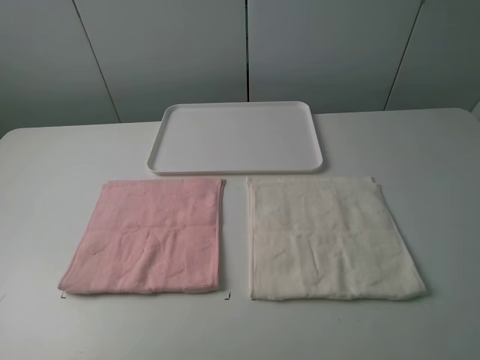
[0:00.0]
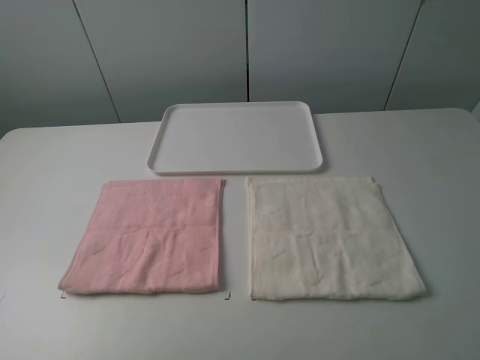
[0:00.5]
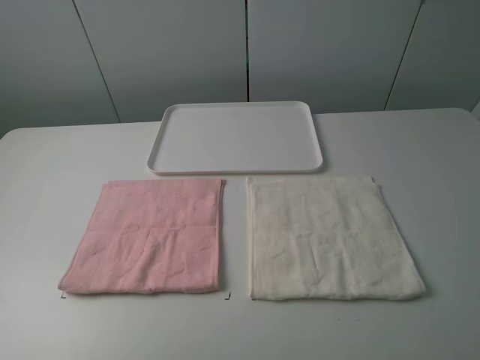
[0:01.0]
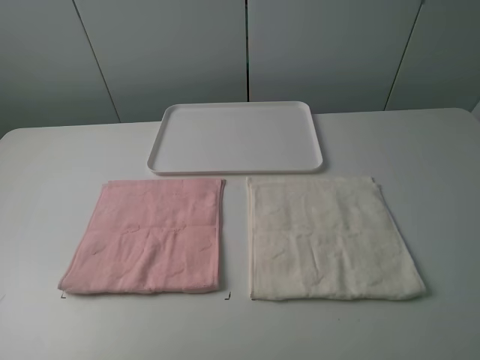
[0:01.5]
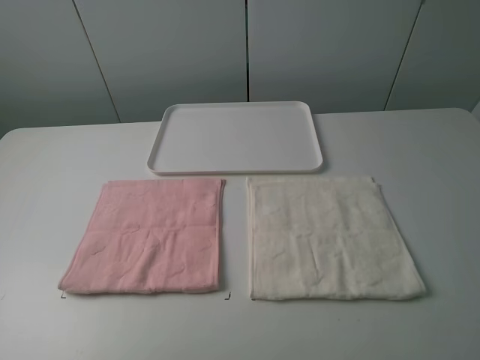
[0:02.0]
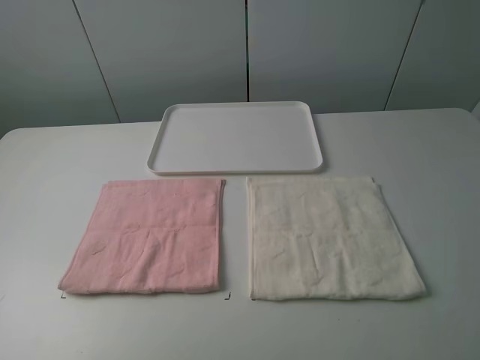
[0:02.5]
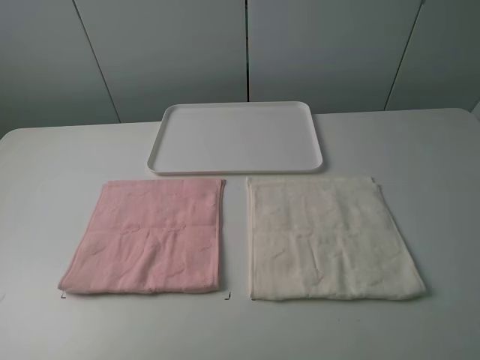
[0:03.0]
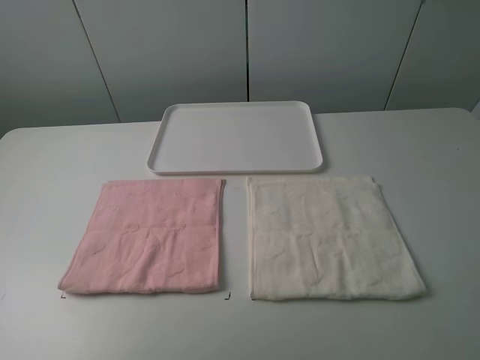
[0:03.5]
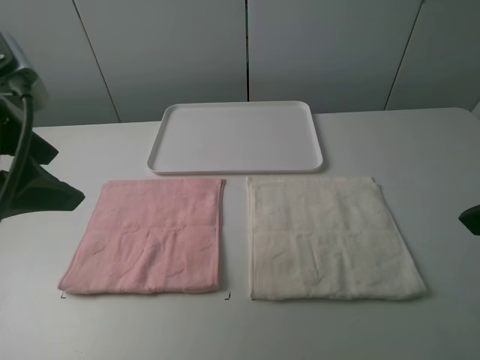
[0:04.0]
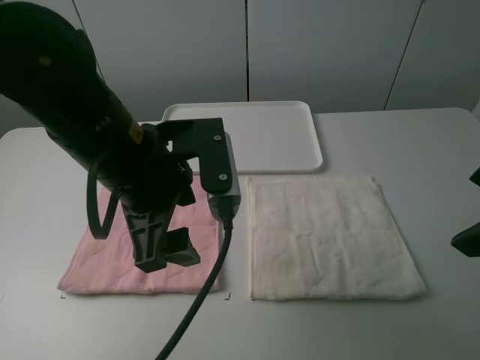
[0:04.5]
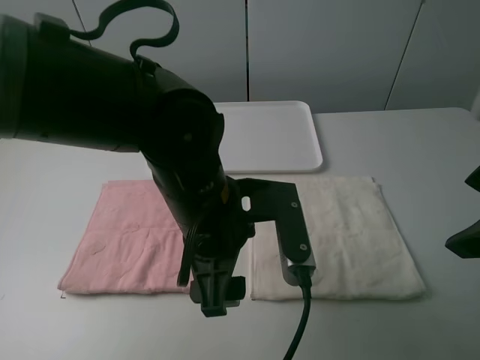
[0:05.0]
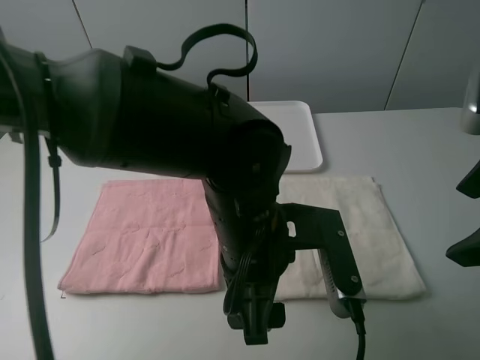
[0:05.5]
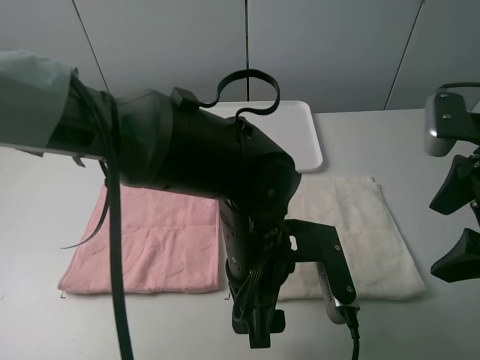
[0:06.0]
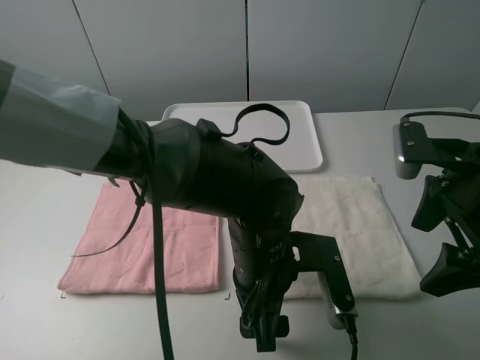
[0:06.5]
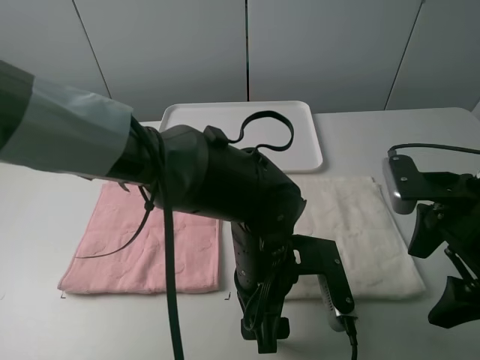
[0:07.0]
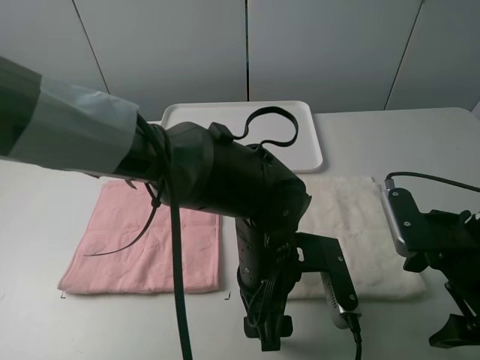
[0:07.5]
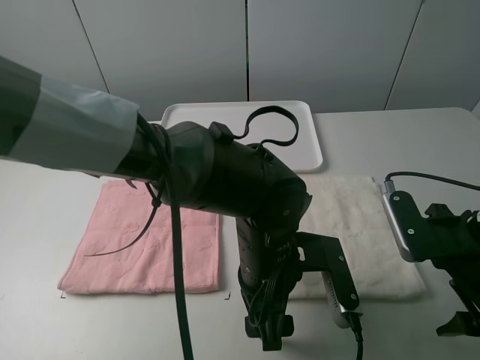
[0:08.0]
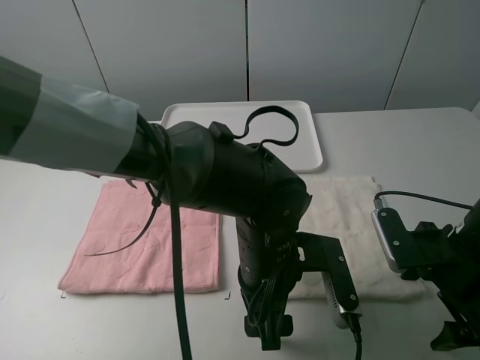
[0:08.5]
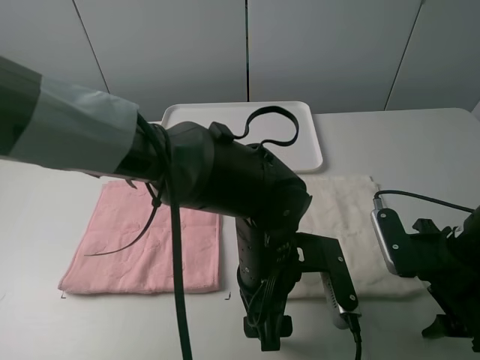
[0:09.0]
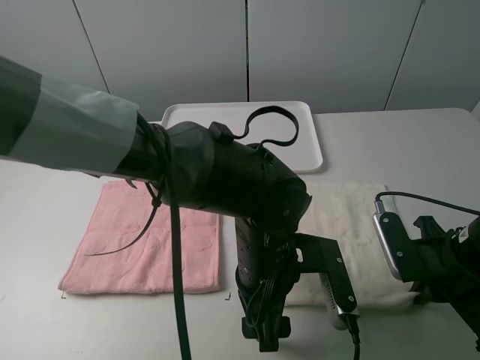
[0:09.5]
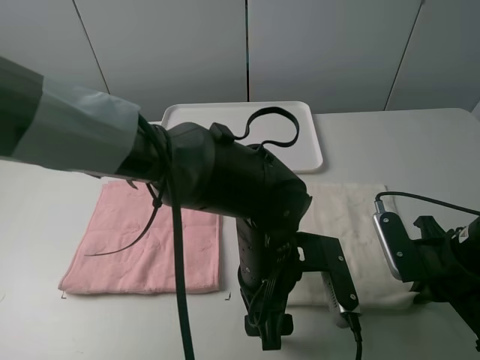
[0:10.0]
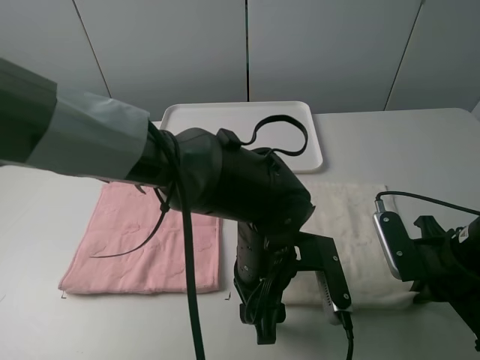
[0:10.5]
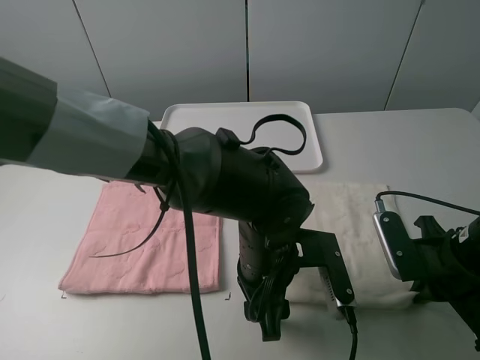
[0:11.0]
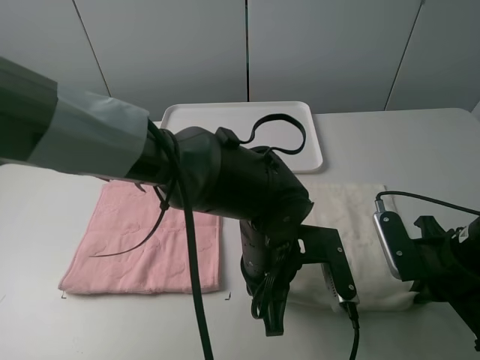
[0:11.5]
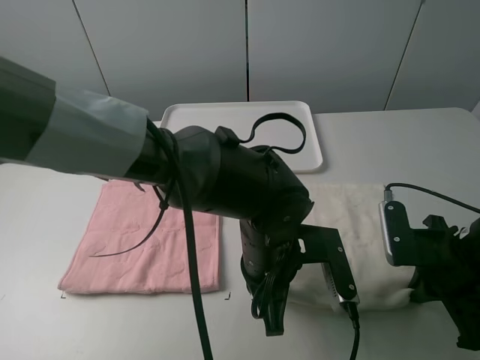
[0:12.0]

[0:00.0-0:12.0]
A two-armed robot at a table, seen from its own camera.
Task of the whole recording: fold one of the towels by two grippers and place it on the tray,then fold another towel by two grippers and place it on the folded towel.
Step, 0:00.0 to 0:11.5: Grasp the white towel with the left gripper.
0:00.0 to 0:02.0: Both grippers stay put.
0:02.0 to 0:04.0: The left gripper heads forward and to the right, covering some 20 cm, while the right gripper moves forward, about 15 cm.
0:04.0 to 0:06.0: The left gripper goes approximately 30 cm to the right and downward. Meanwhile the right gripper travels downward by about 5 cm.
0:06.0 to 0:08.0: The right gripper shifts roughly 10 cm downward.
0:08.0 to 0:10.0: The right gripper closes up.
0:10.0 to 0:12.0: The left gripper closes its fingers.

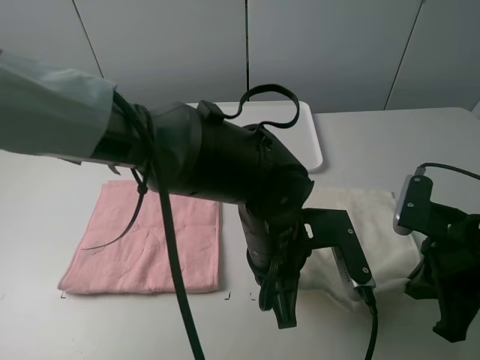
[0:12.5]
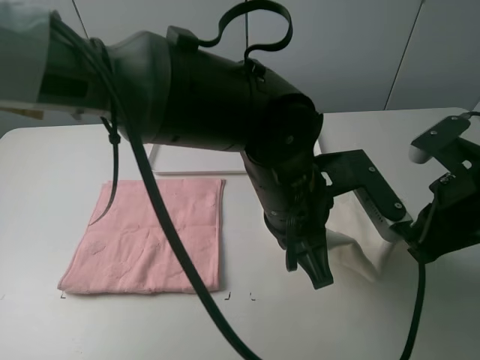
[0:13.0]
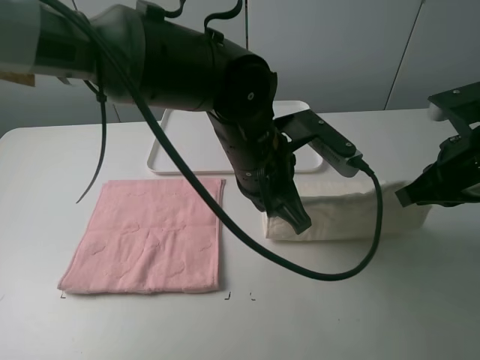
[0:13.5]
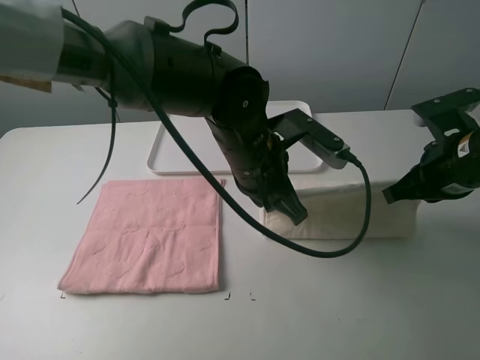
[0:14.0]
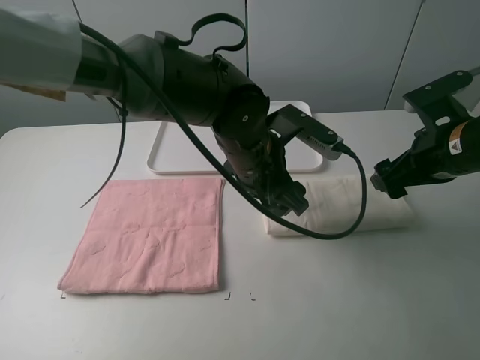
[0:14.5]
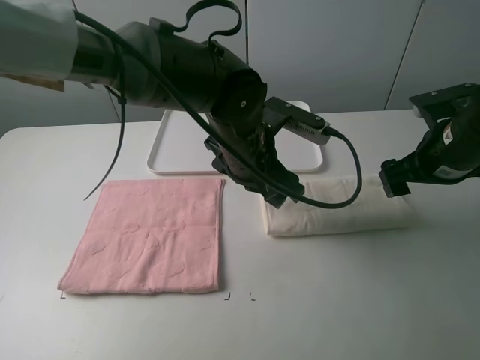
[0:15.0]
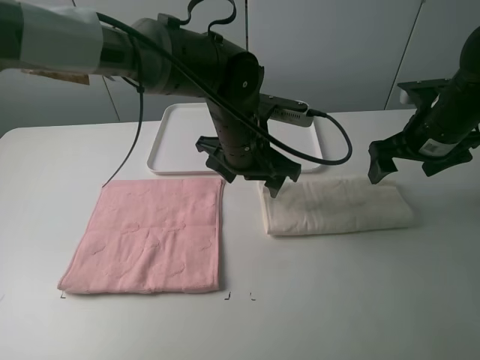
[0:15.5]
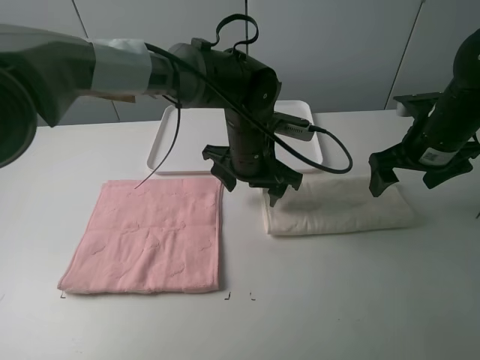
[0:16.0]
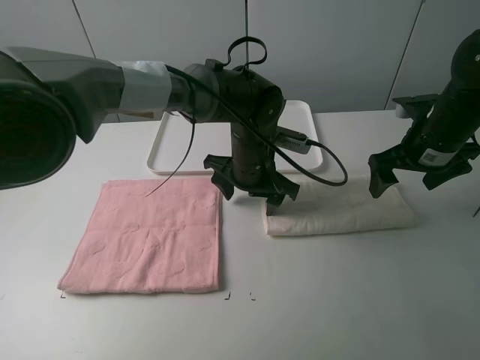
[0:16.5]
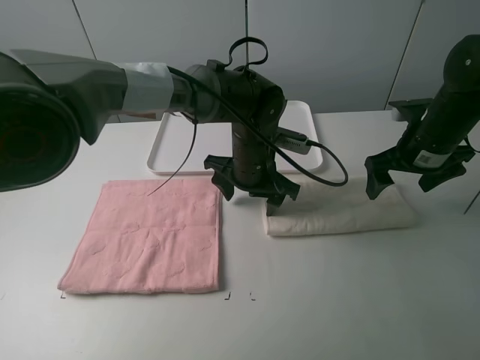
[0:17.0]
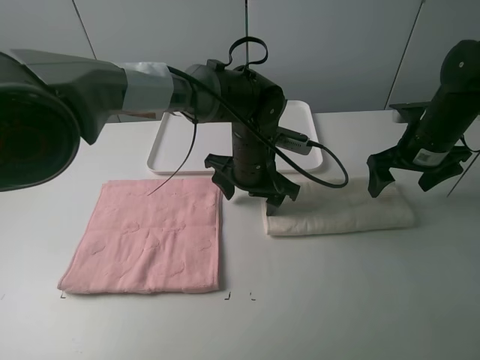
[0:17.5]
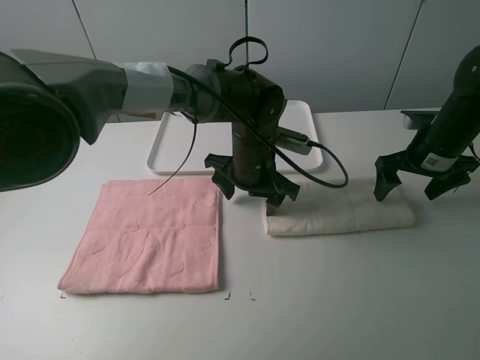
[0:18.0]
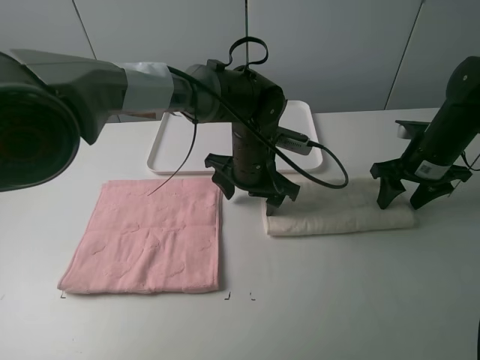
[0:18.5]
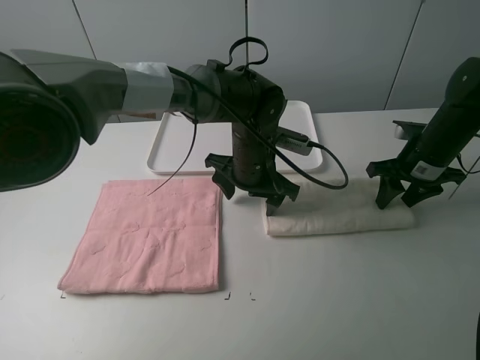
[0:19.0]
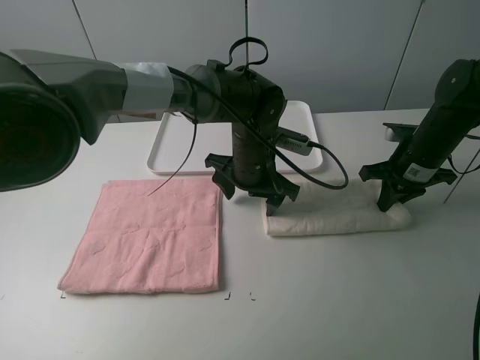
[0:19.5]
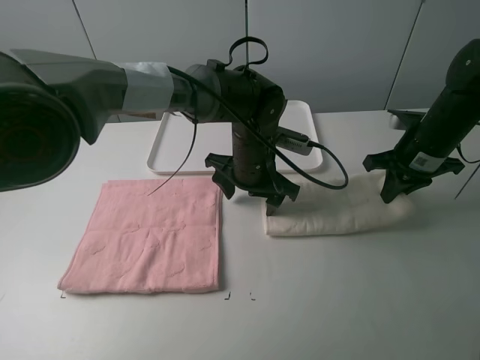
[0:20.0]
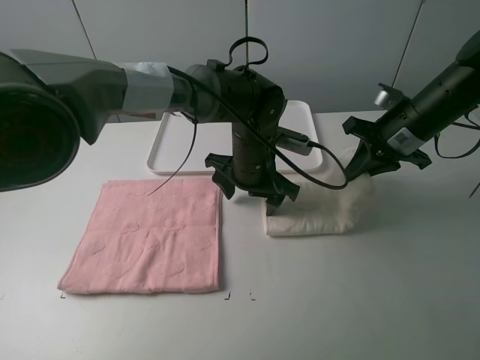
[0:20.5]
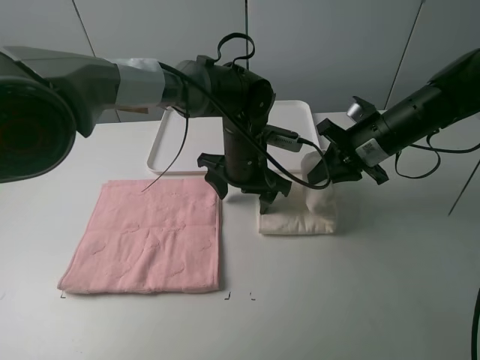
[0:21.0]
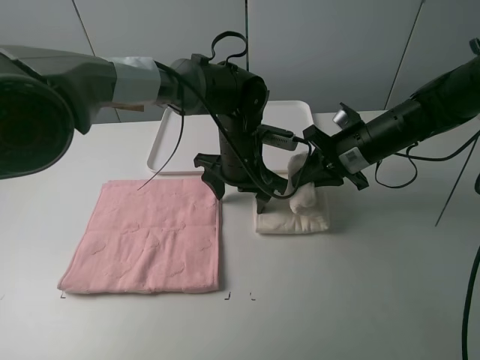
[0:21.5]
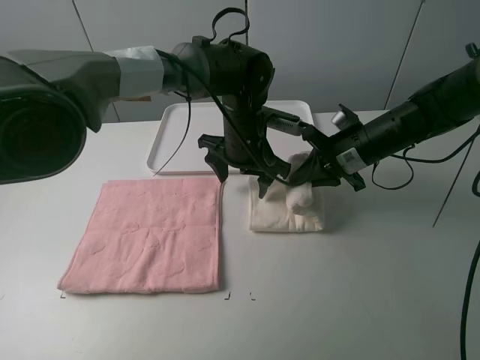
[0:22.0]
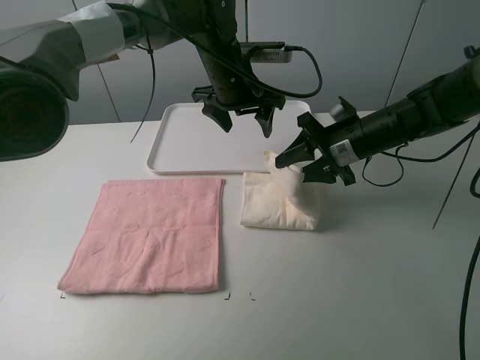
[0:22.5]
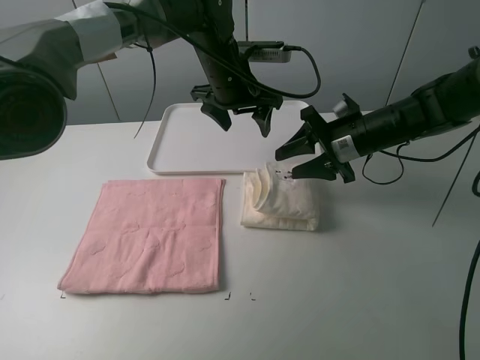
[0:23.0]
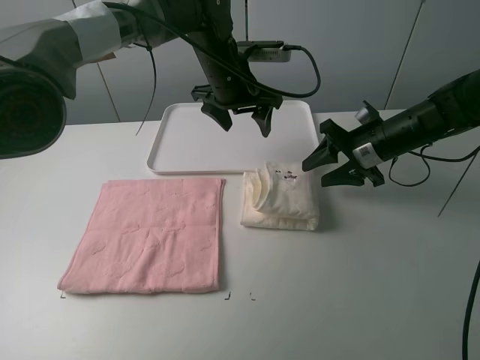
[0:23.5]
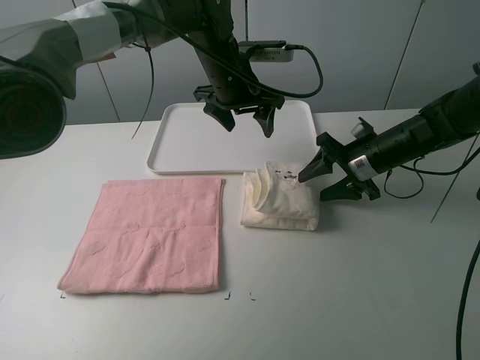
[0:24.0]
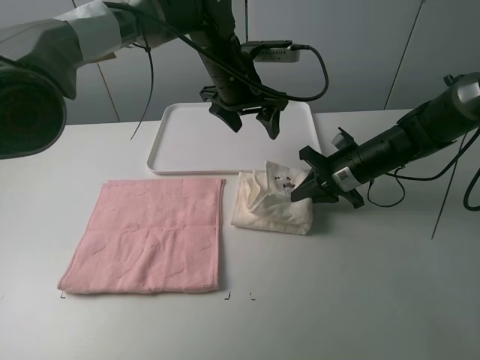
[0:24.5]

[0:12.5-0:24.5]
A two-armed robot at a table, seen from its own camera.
Task of the whole recording: fold one of the towels by two grippers and place it on the tray,then fold another towel by two grippers and place it on the folded towel.
Step, 0:12.5 to 0:14.5: Fold the white towel upwards with the left gripper.
Step, 0:15.0 to 0:17.5: Press the white towel with the left gripper.
Step, 0:18.0 to 0:19.5: Grasp the white towel with the right gripper.
Step, 0:20.0 to 0:23.0: Fold the white towel from right to left with right gripper.
0:12.5 to 0:14.5: The grippers both shift forward by approximately 10 cm. The right gripper opens up. Meanwhile the left gripper opens up.
0:14.5 to 0:16.5: The left gripper is displaced forward and downward by roughly 10 cm; the right gripper goes some 5 cm forward.
0:16.5 to 0:18.5: The right gripper ends up roughly 5 cm from where it was, and closes up.
0:18.5 to 0:20.5: The right gripper travels upward and to the left by about 10 cm, and closes up.
0:20.5 to 0:22.5: The right gripper heads to the left, covering some 5 cm, and opens its fingers, while the left gripper moves upward and forward, approximately 15 cm.
0:22.5 to 0:24.5: The right gripper heads downward, covering about 5 cm, and closes up.

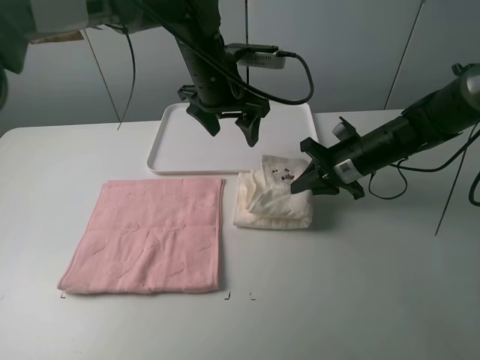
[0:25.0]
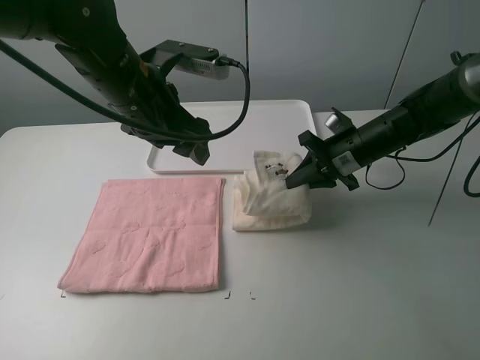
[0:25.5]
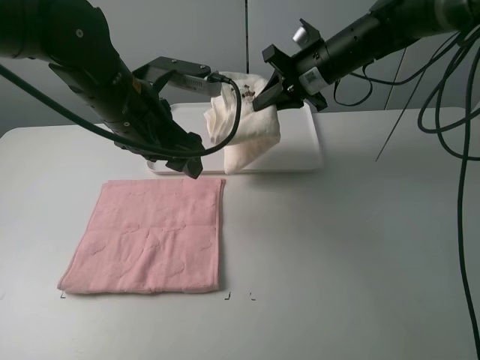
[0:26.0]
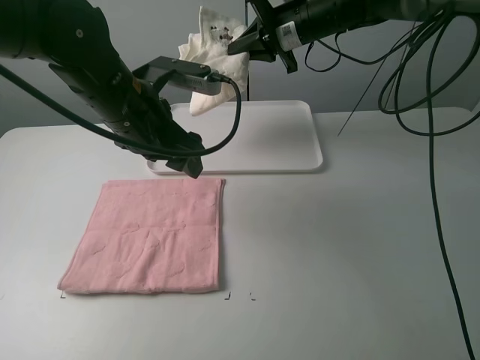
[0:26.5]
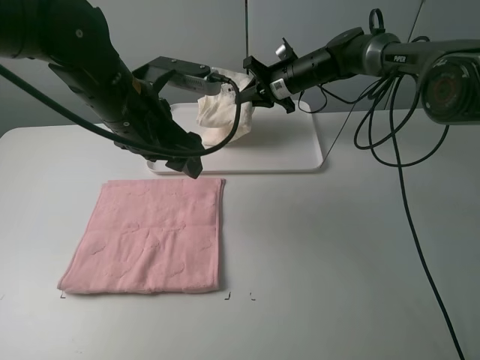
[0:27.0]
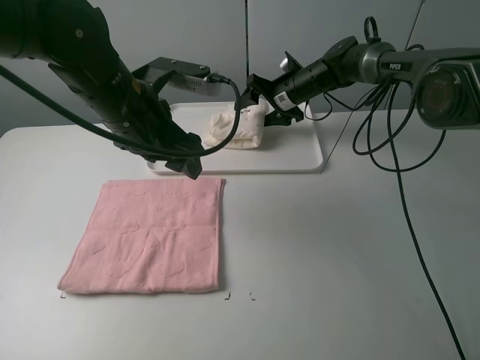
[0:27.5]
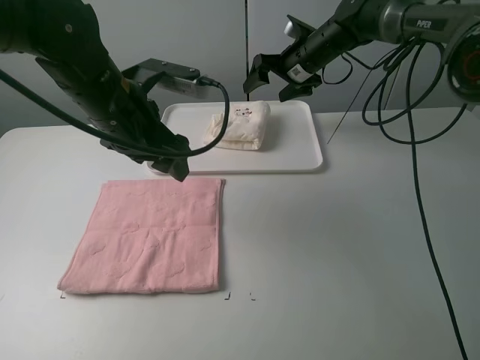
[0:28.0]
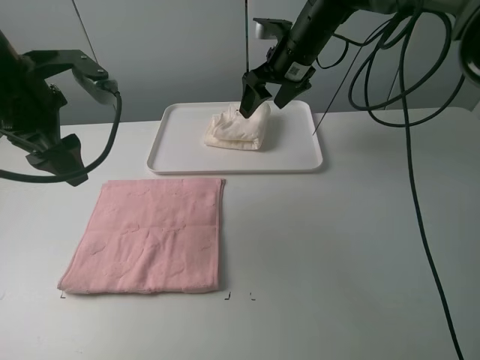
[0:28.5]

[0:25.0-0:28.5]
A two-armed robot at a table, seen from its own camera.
Task of the whole recording: fold one of the towels by two grippers and place it on the tray,then fold another towel by two grippers and place it on the folded towel.
Step, 0:25.0 to 0:27.5: Move the white towel to the plate with the right gripper.
0:25.0 to 0:27.0: The right gripper travels forward and to the left by about 20 cm. Meanwhile the left gripper goes some 15 cm backward and to the left.
0:27.0 to 0:28.5: The right gripper shifts roughly 10 cm upward and backward, and opens its fingers, while the left gripper moves to the left, some 10 cm.
